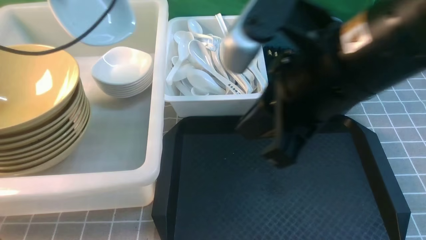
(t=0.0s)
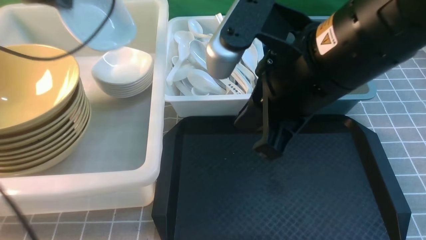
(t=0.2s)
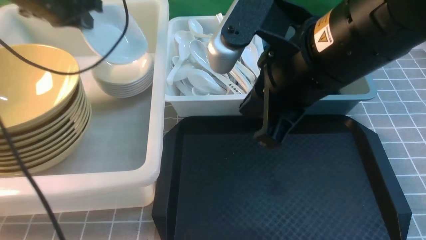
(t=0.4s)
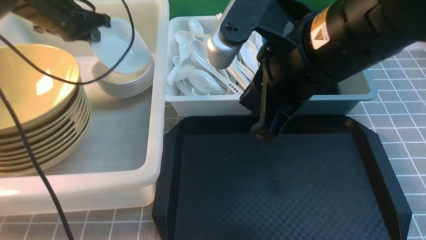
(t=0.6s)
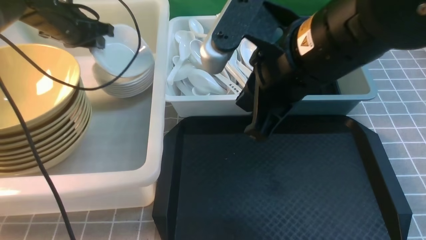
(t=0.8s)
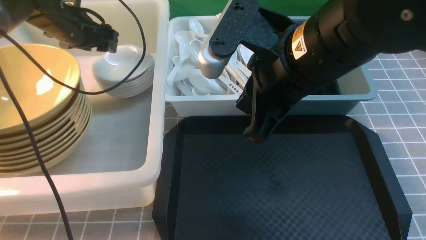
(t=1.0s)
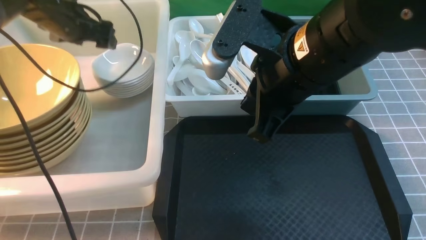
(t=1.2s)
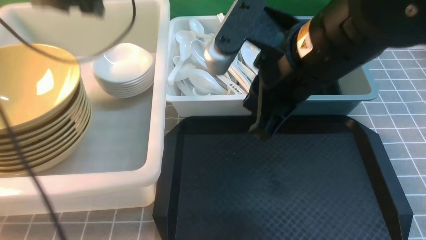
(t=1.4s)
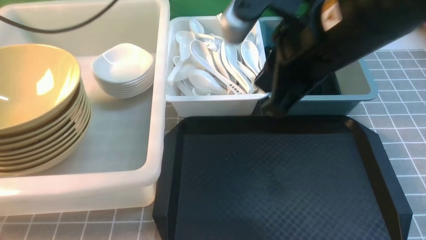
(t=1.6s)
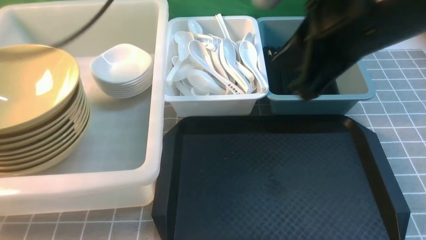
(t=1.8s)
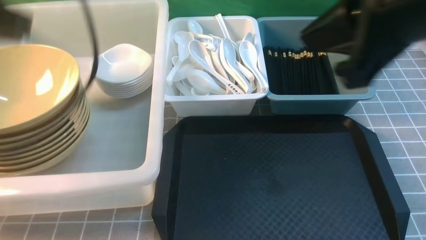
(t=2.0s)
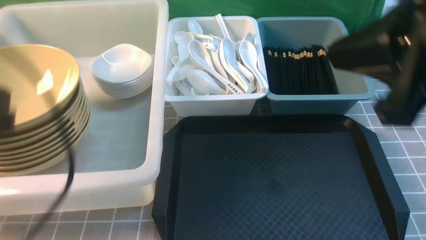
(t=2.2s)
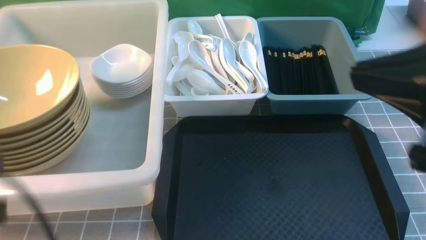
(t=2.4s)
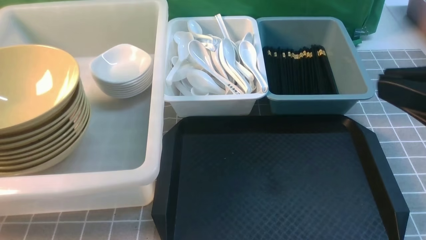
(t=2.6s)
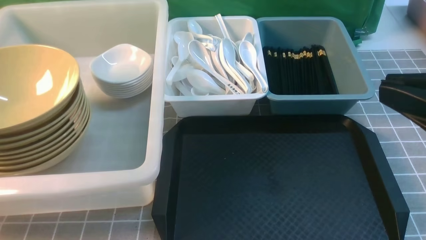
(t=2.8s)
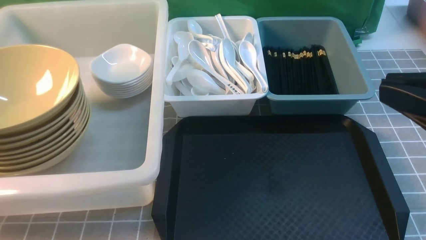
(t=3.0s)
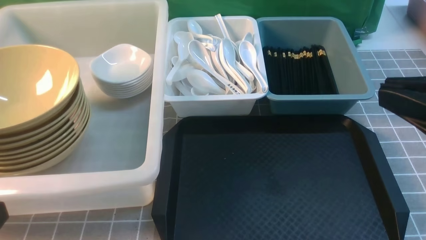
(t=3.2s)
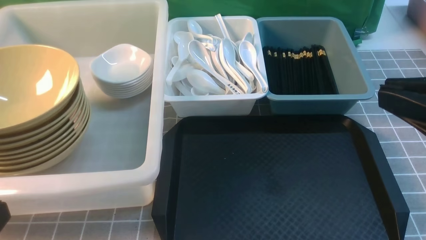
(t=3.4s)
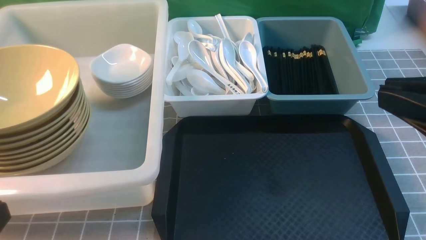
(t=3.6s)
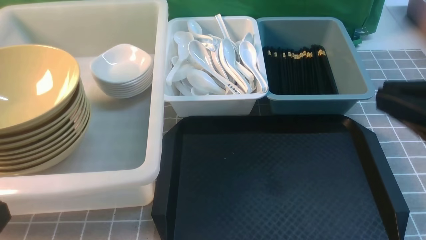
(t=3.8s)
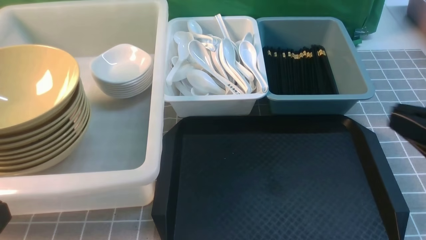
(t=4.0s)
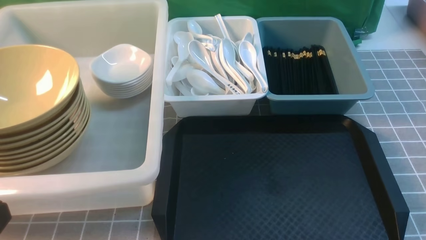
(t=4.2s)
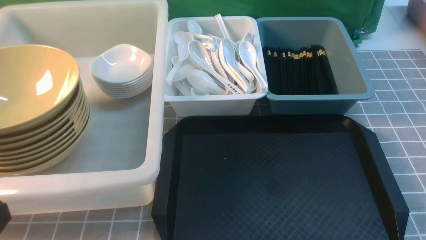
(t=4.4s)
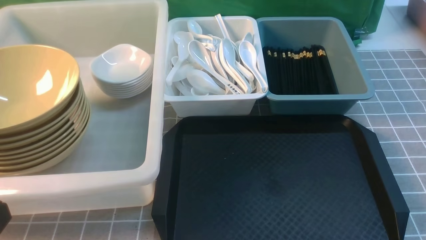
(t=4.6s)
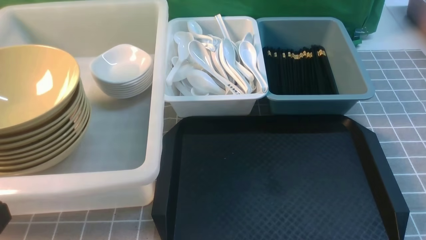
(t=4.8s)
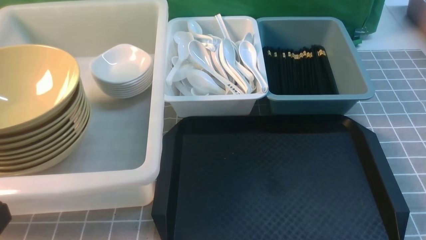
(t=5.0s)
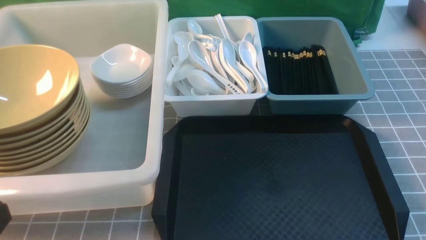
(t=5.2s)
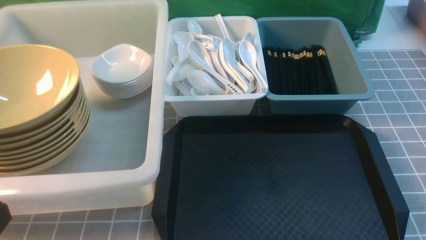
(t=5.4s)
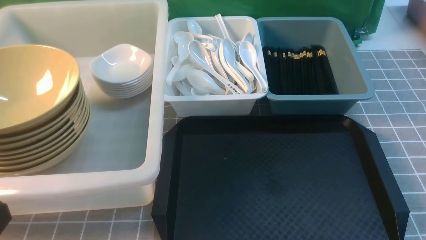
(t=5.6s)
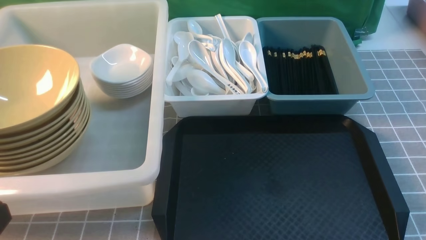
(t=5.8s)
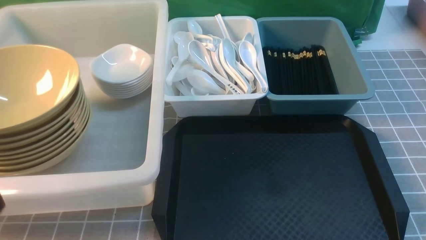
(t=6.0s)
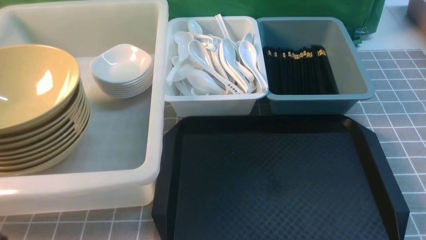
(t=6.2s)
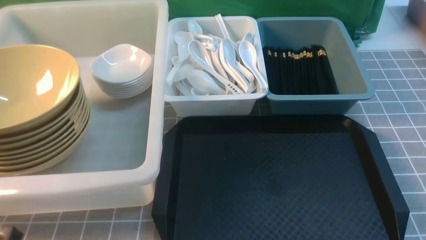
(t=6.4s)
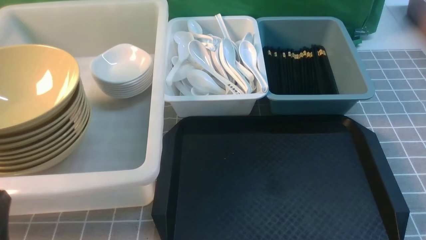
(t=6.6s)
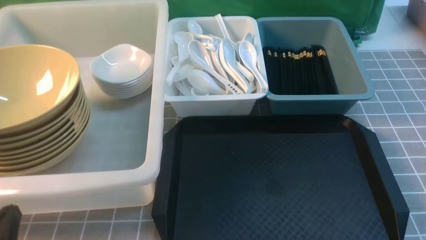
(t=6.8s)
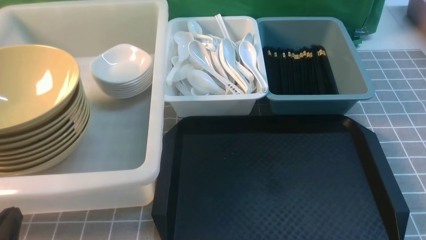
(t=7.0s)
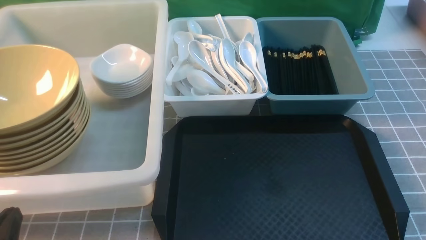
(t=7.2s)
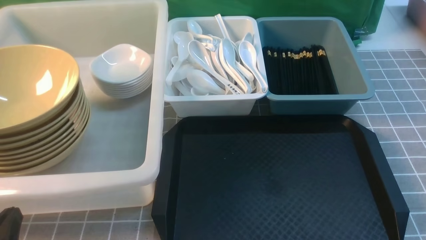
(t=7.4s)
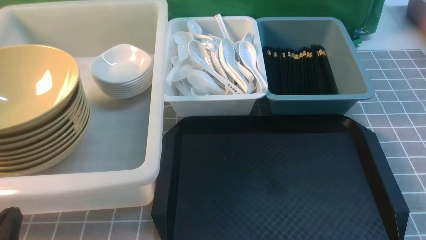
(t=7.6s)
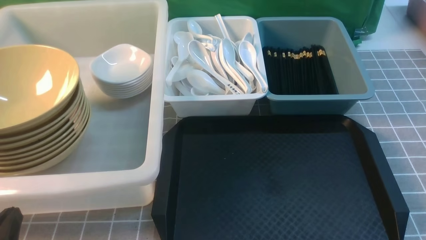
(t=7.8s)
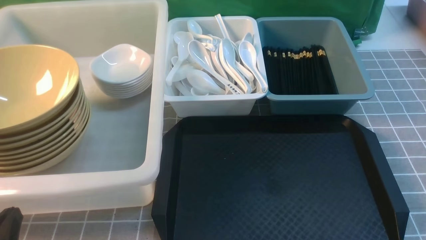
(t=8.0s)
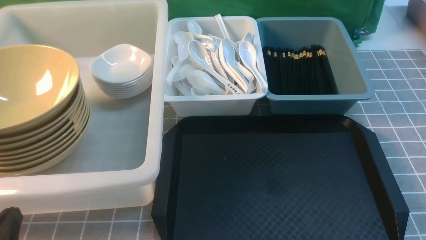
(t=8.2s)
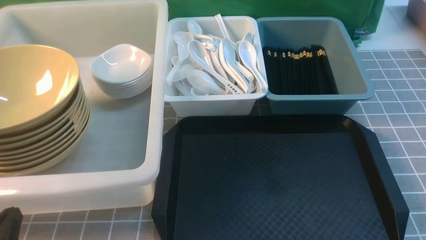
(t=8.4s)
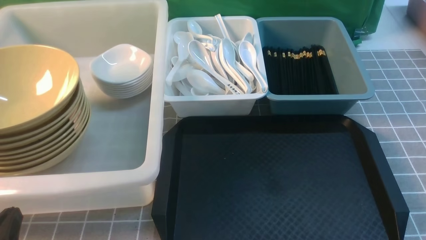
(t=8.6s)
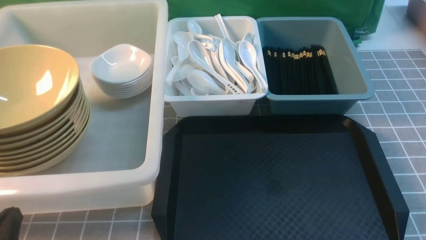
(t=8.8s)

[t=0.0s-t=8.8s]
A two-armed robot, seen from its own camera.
Task of the whole recording: on grey table put chopsticks spoon bowls plates into blue grey white boxes.
Step, t=0.0s to t=1.2s: use the left arm to put the plate into the large storage box on the left.
t=0.0s to t=1.4s: The left gripper heads forward, covering approximately 5 cm, goes downward and returns, some 15 cm each way, and opens.
t=1.4s to t=3.0s: The left gripper shifts about 40 cm backward, and closes its fingers, while the right gripper moves backward and to the right, about 20 cm.
t=3.0s to t=4.4s: The right gripper heads downward and to the right, covering roughly 15 cm.
t=7.4s to t=8.8s: Both grippers stay put.
